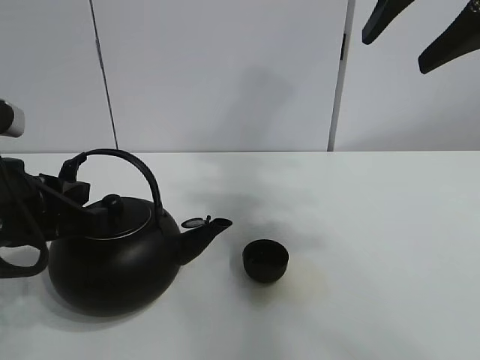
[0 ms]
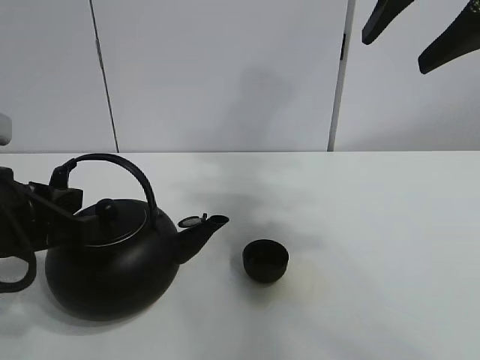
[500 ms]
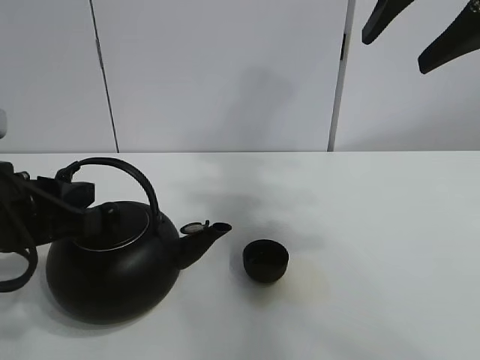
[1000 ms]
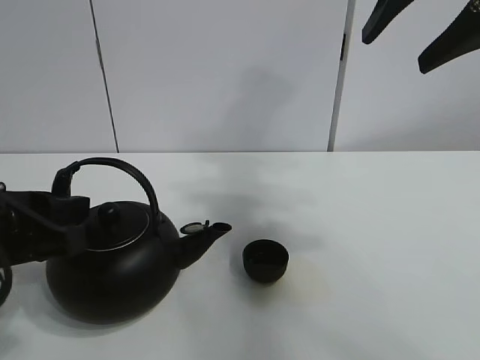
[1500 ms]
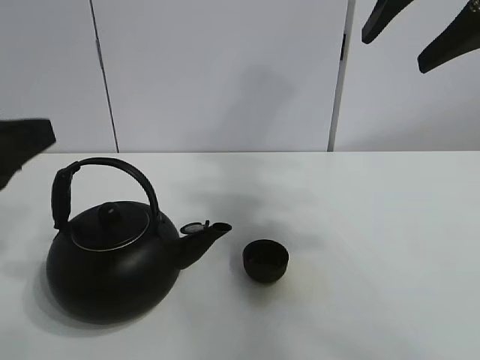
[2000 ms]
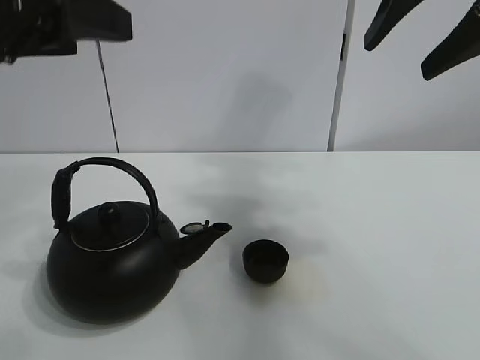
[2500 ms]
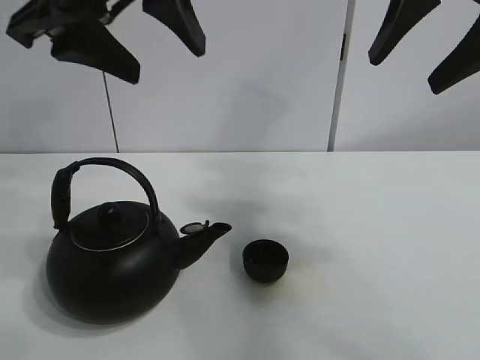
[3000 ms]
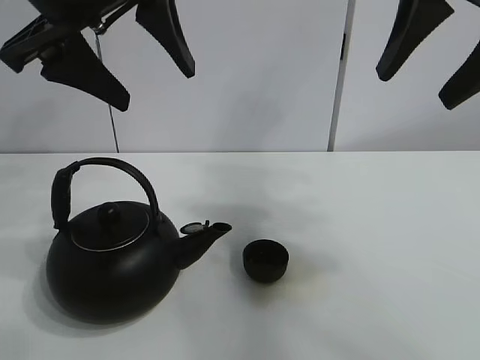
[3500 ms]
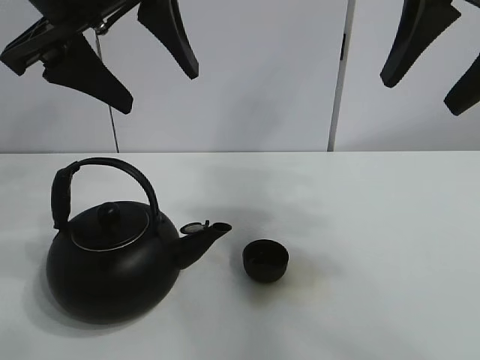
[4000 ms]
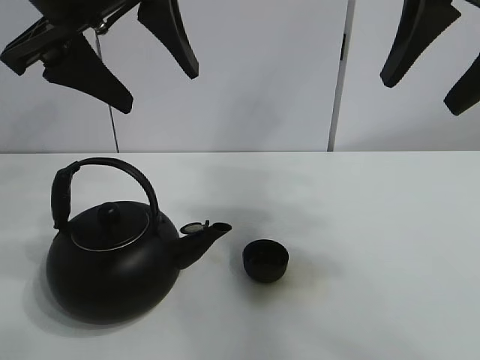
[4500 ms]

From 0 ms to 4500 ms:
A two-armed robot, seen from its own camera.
Task of the whole recording: pour tea into the teacup.
From 0 ms to 2000 ms: The left gripper is displaced backward by some 5 cm, and opens.
From 2000 ms to 4500 ms: The left gripper shifts some 20 cm upward, forward and to the right, and opens its fingers.

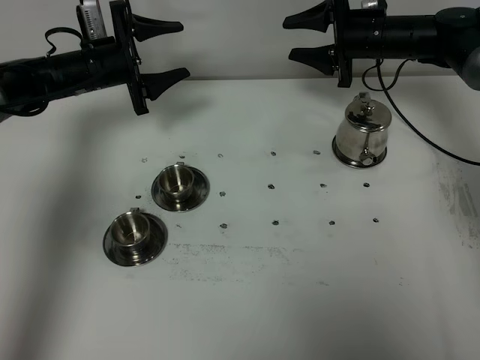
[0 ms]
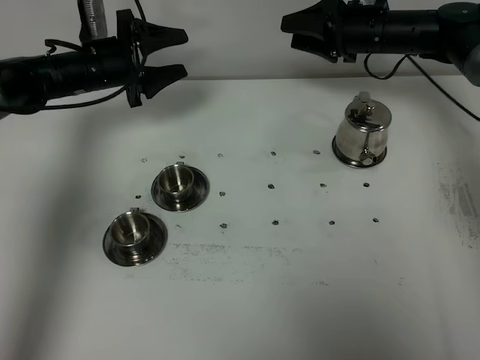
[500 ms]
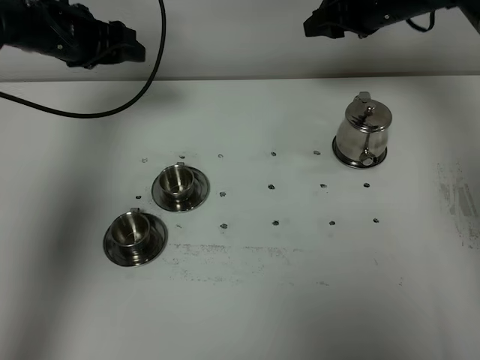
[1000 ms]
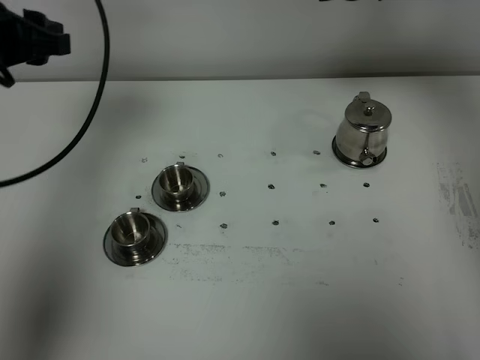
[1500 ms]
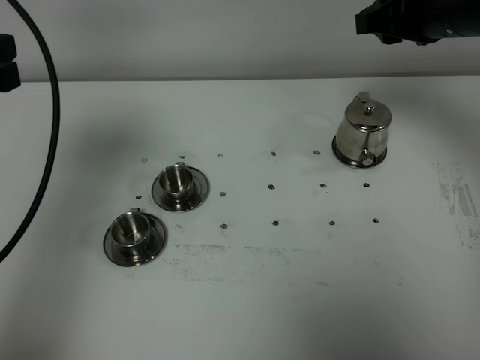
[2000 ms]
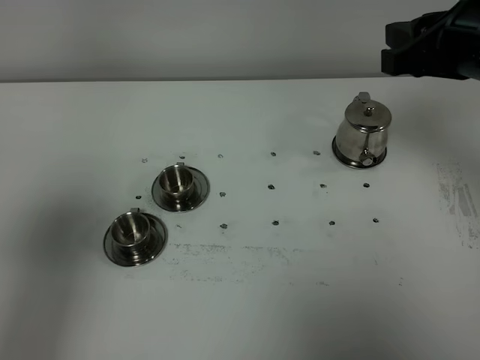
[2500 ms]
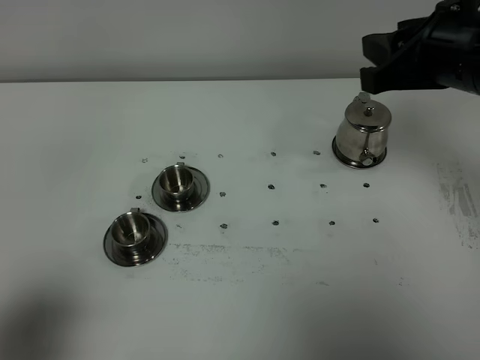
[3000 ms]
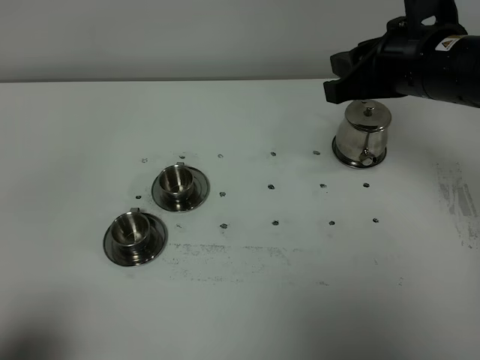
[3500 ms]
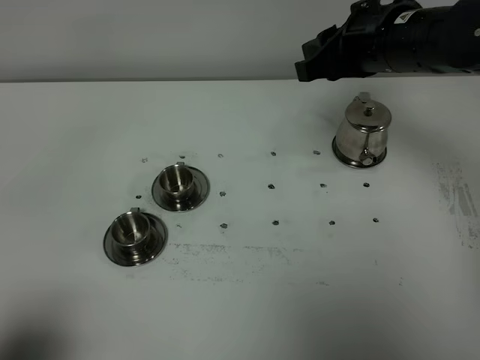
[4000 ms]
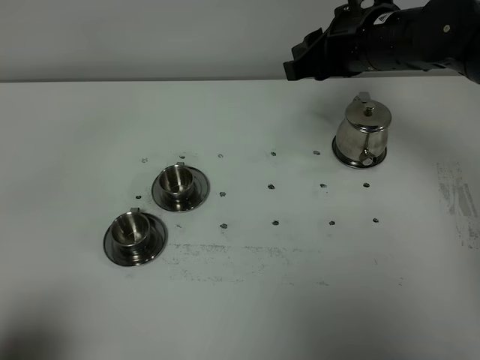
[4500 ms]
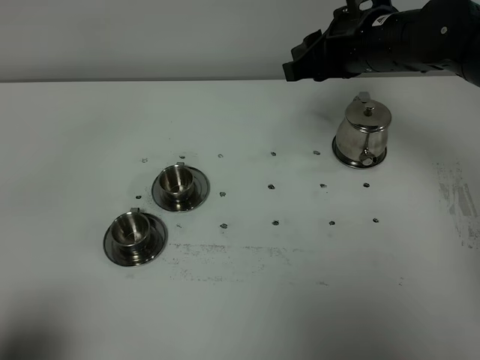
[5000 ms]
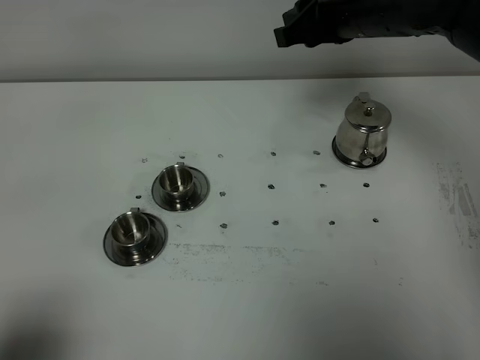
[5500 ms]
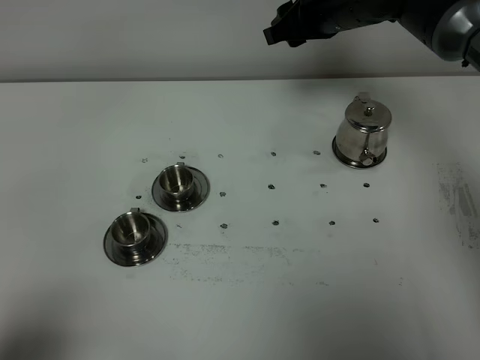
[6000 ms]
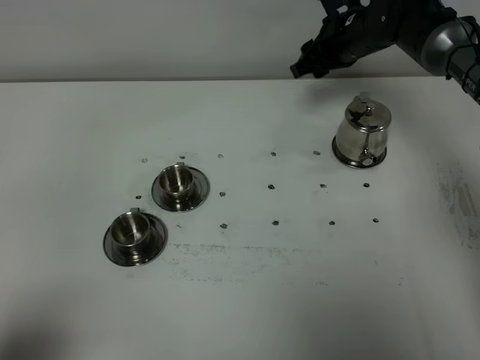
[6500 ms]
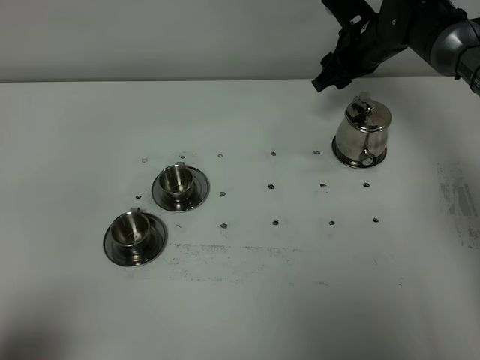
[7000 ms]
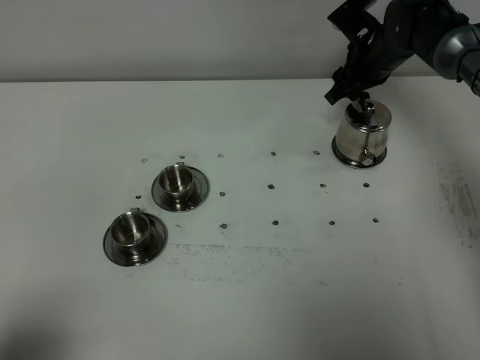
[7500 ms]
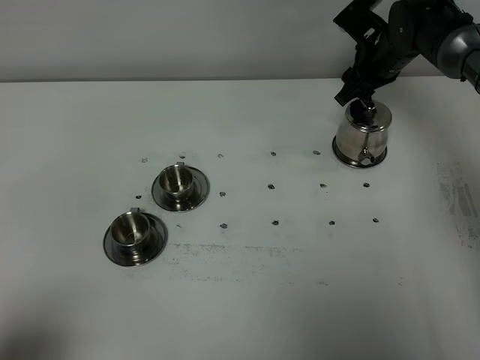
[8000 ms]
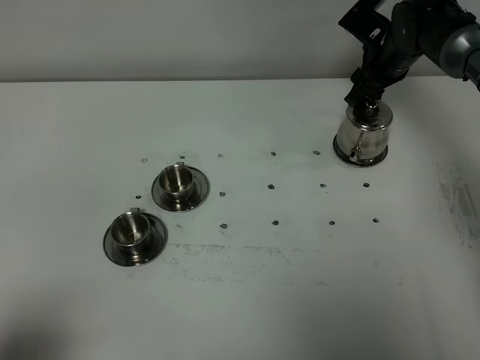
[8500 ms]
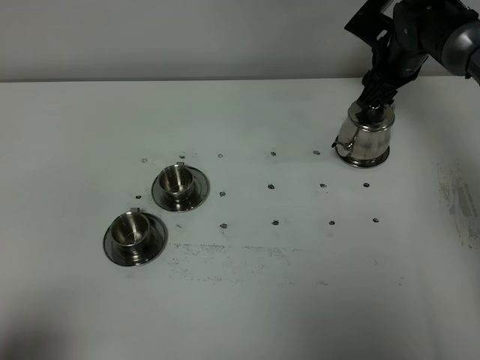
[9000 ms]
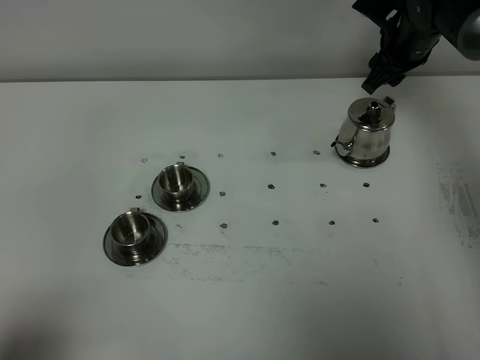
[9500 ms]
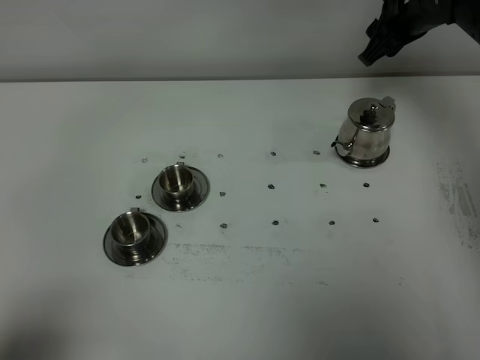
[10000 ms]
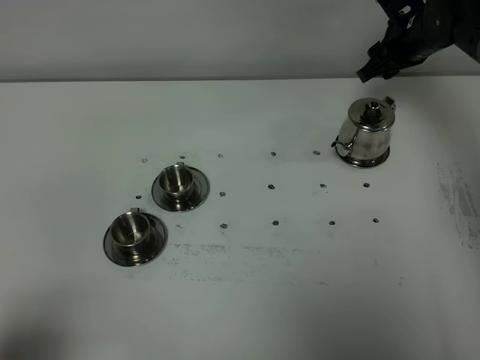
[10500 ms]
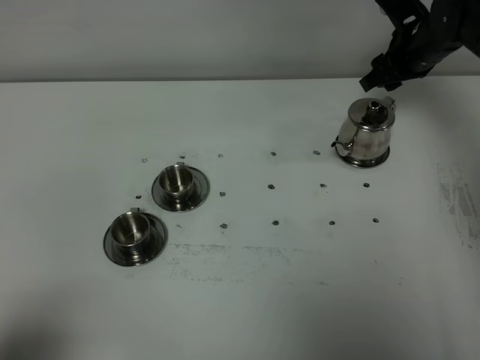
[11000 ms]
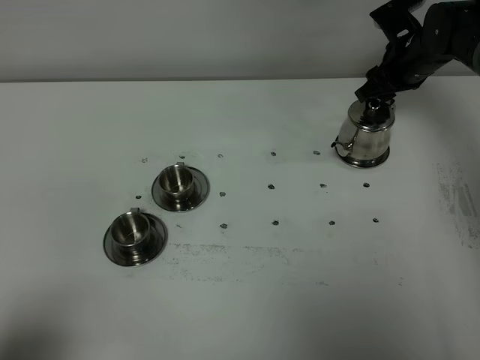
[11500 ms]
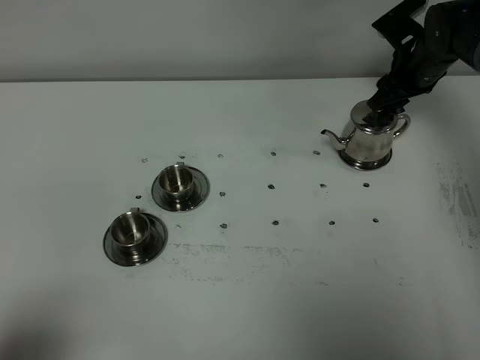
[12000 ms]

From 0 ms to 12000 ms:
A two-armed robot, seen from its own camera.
Task of the whole recording: grasp the stainless steel teapot and pour the tea into the two stainless steel teacups one by one, put the stainless steel teapot back in its original place.
From 0 ms to 2000 ms: The right gripper is displaced backward and upward by approximately 20 cm, while the left gripper shifts about 35 cm backward and upward, and closes its fingers.
From 2000 ms to 4000 ms: The left gripper shifts roughly 25 cm backward and downward, and closes, while the right gripper shifts approximately 5 cm to the left, and travels backward and back again, approximately 10 cm each way.
From 4000 ms to 6000 ms: The right gripper moves forward, some 10 cm, and opens its fingers.
From 6000 ms to 8000 ms: The right gripper is displaced downward and to the right by roughly 15 cm.
From 8000 ms to 10000 ms: The right gripper travels upward by approximately 5 cm.
From 10000 ms to 12000 ms: The right gripper heads downward, covering approximately 5 cm.

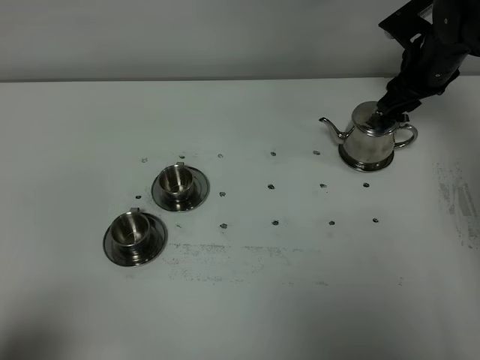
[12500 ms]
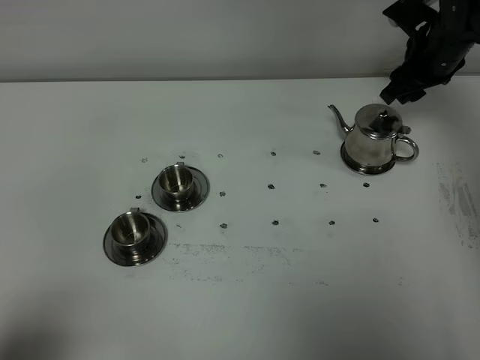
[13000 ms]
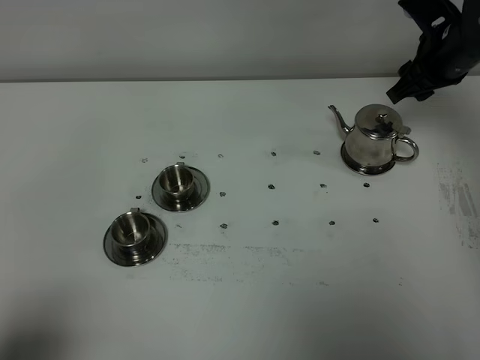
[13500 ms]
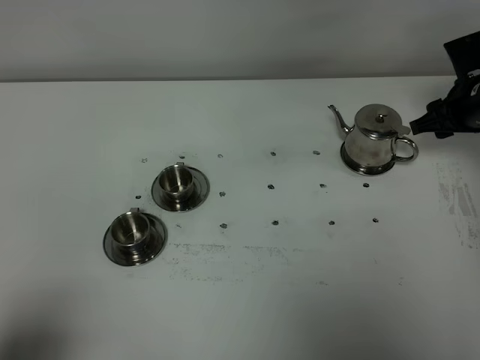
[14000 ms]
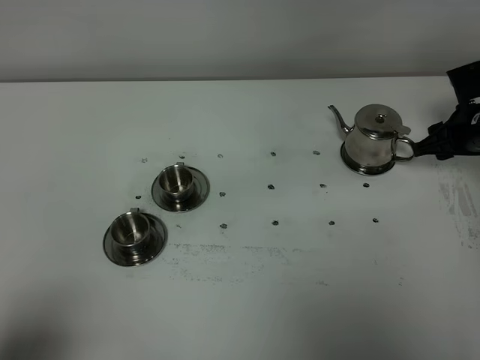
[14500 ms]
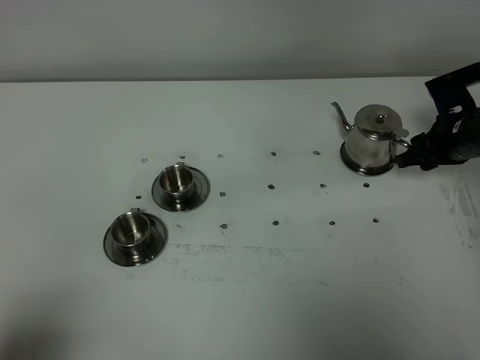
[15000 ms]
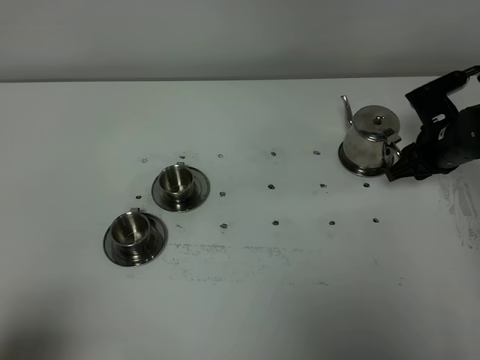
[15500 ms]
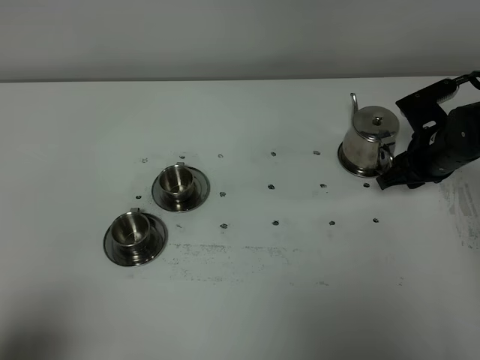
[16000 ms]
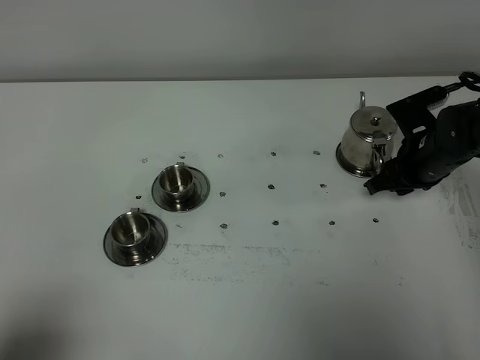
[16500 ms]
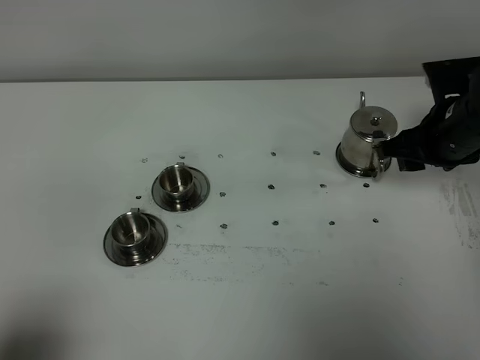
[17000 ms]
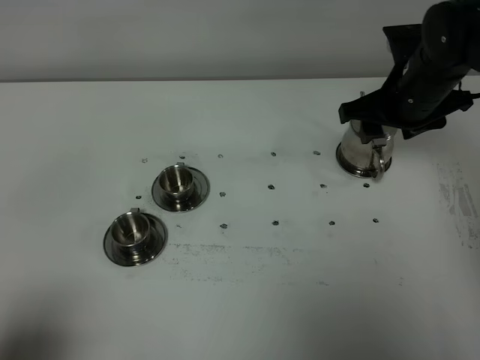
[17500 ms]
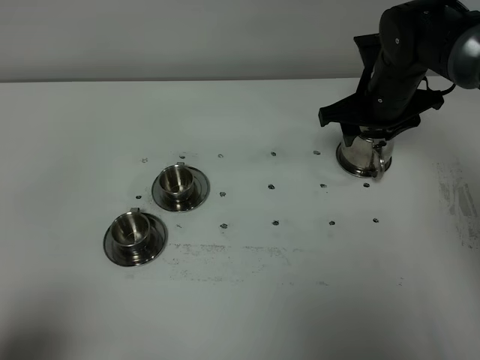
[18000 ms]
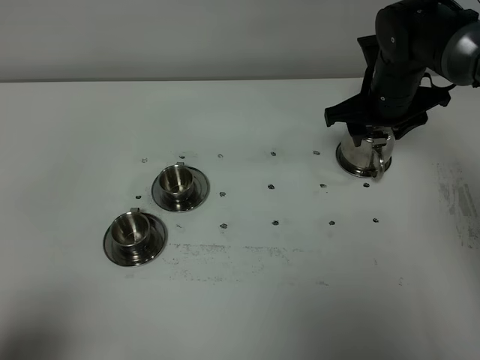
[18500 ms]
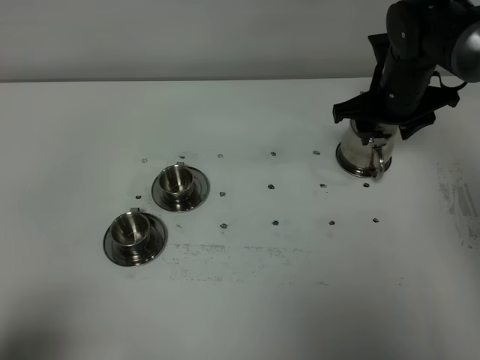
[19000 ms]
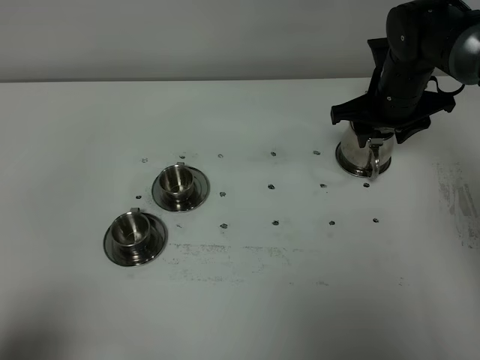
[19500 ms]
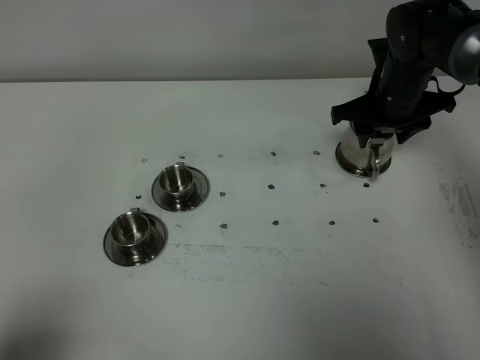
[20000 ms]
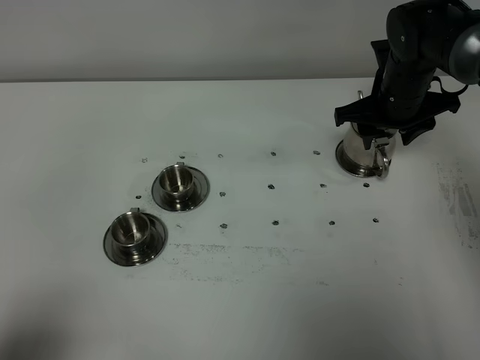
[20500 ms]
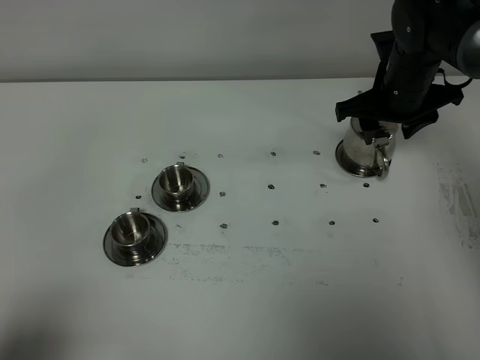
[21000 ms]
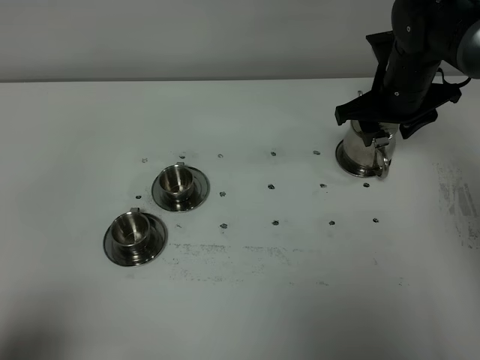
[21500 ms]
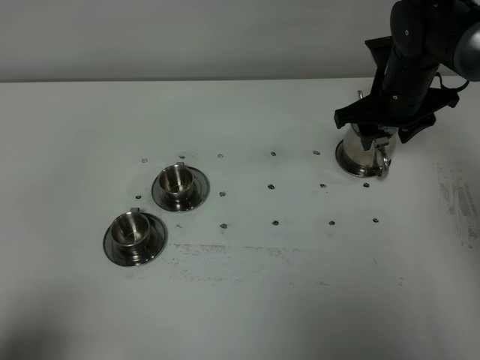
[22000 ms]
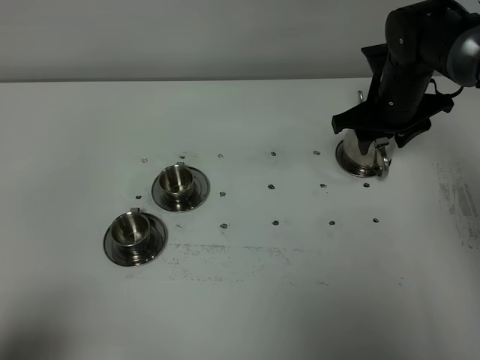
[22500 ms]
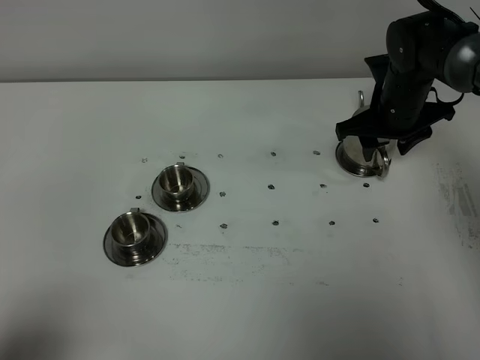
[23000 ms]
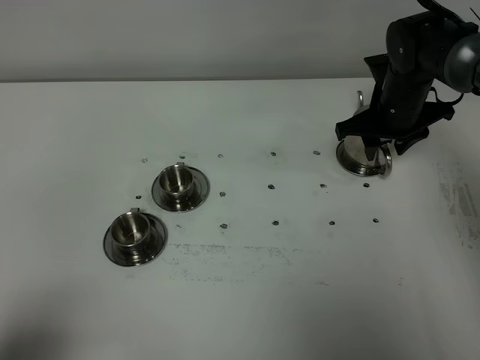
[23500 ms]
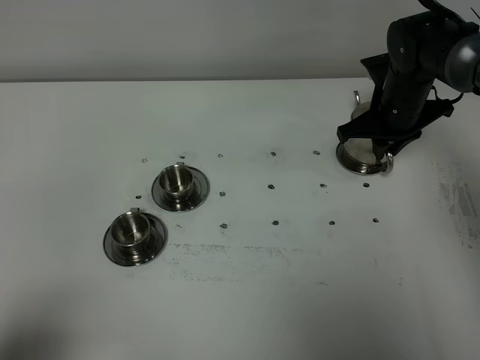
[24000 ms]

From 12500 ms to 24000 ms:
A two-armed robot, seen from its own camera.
Task of the whole recording: grasp the stainless steel teapot and pour the tea into the two stainless steel teacups one by one, put the stainless steel teapot back in its original place.
From 12500 ms to 14500 ms: The right gripper shifts some 10 cm backward, downward and to the right.
From 14500 ms to 16500 ms: The right gripper heads to the left, covering some 5 cm.
From 16500 ms to 18500 ms: The right gripper heads upward, to the left and forward, covering approximately 10 cm, and opens.
From 18500 ms to 22000 ms: The grippers make only small movements.
From 22000 ms to 24000 ms: The right gripper closes.
